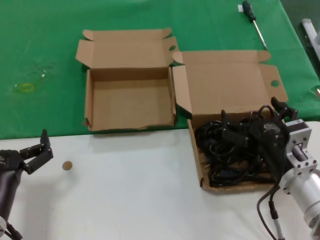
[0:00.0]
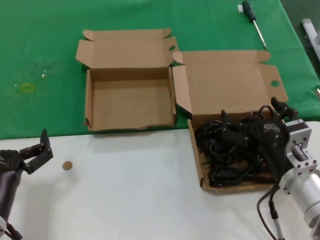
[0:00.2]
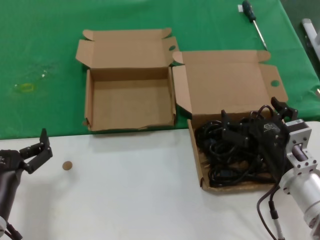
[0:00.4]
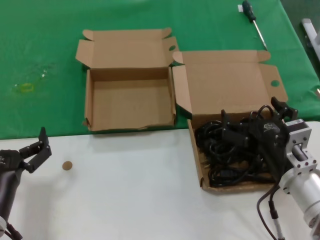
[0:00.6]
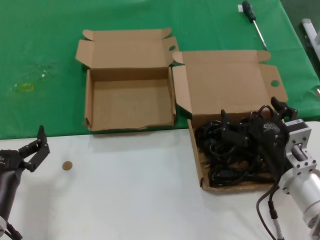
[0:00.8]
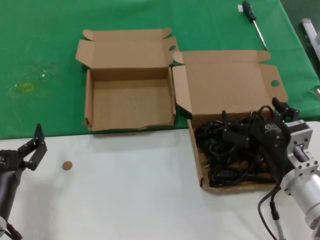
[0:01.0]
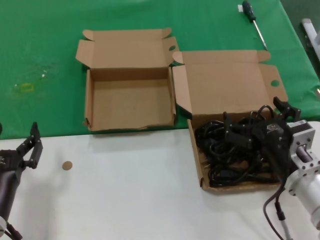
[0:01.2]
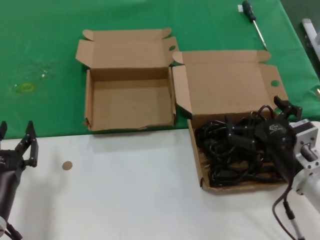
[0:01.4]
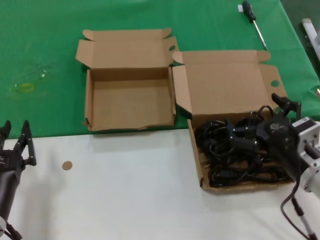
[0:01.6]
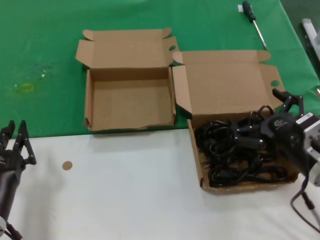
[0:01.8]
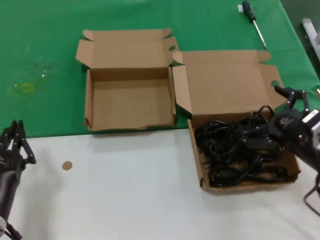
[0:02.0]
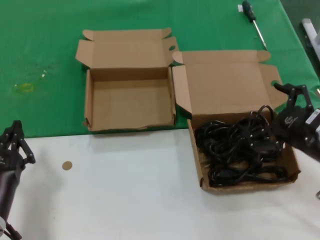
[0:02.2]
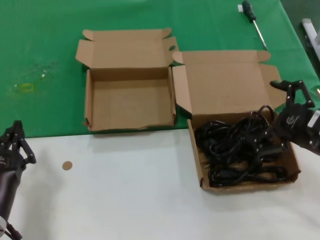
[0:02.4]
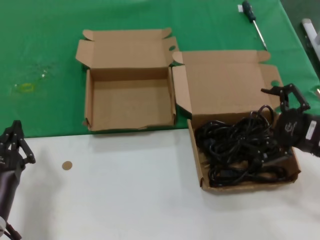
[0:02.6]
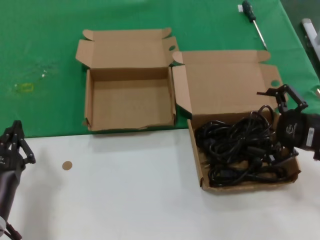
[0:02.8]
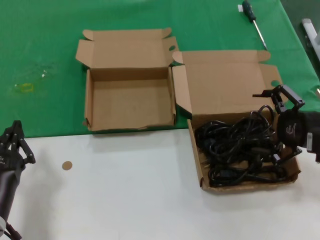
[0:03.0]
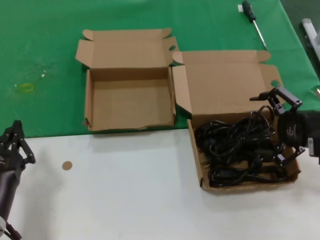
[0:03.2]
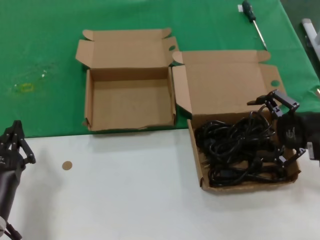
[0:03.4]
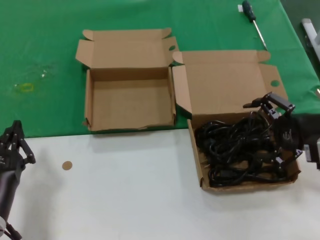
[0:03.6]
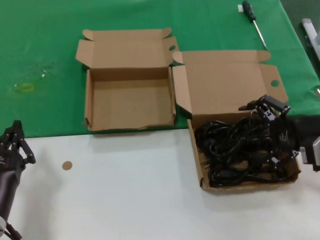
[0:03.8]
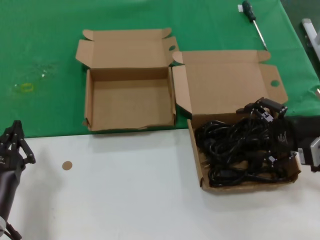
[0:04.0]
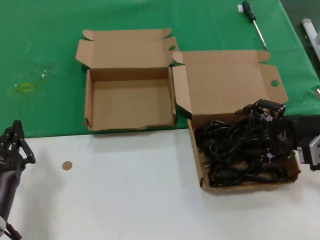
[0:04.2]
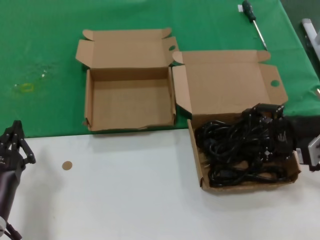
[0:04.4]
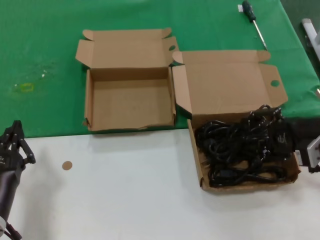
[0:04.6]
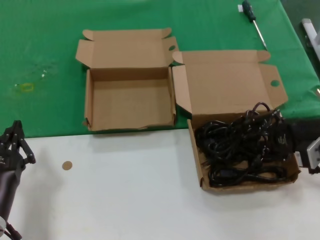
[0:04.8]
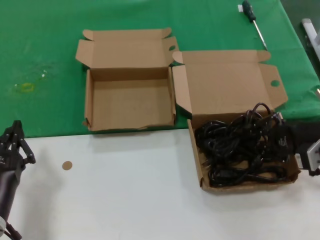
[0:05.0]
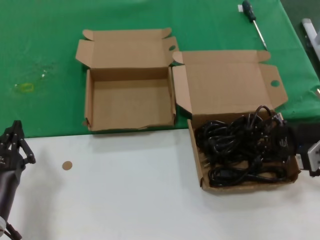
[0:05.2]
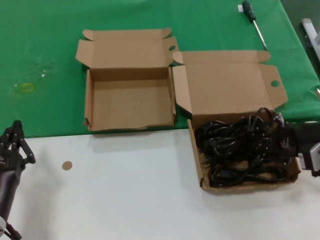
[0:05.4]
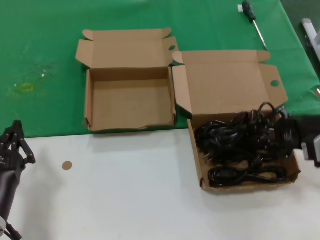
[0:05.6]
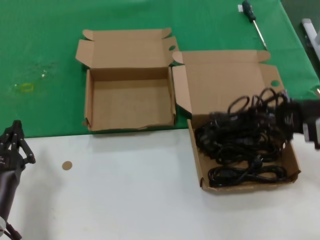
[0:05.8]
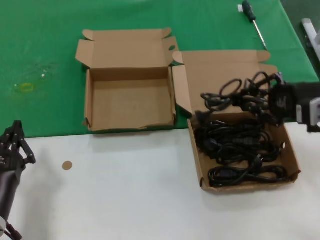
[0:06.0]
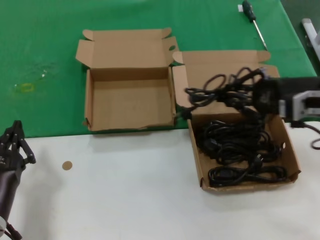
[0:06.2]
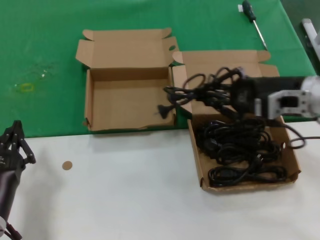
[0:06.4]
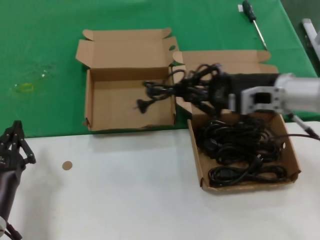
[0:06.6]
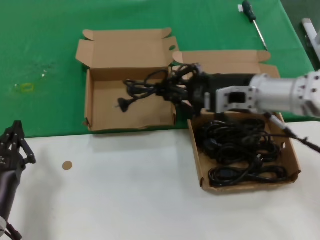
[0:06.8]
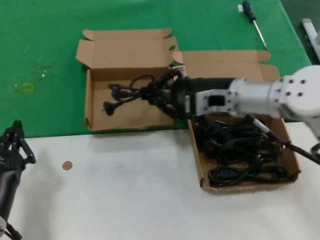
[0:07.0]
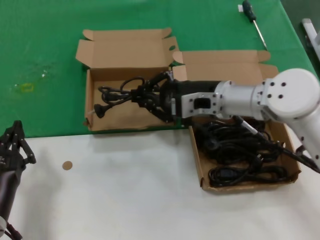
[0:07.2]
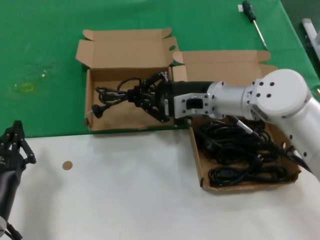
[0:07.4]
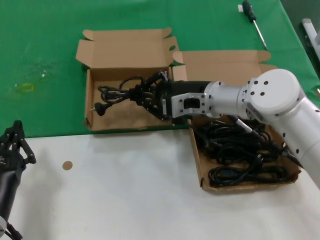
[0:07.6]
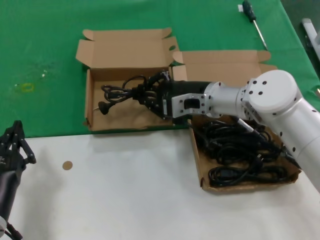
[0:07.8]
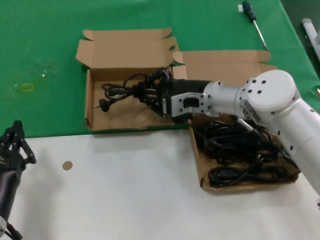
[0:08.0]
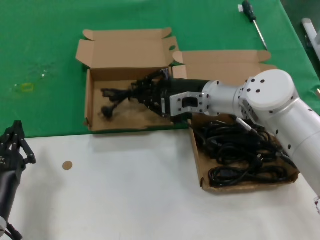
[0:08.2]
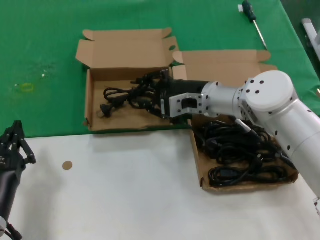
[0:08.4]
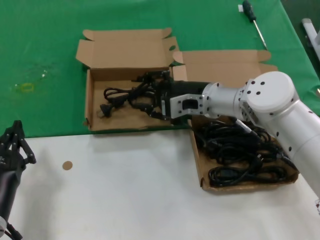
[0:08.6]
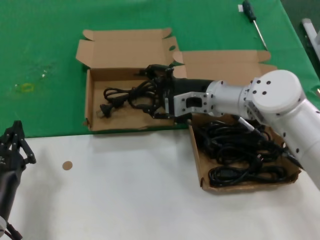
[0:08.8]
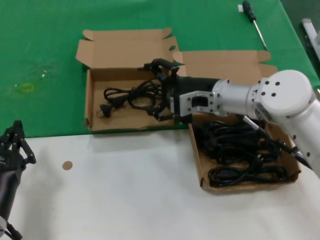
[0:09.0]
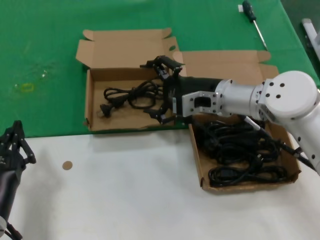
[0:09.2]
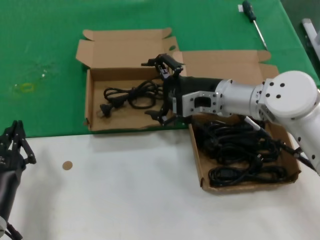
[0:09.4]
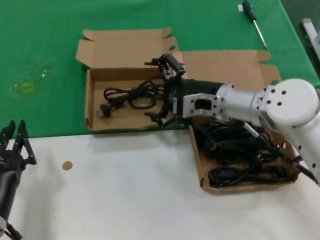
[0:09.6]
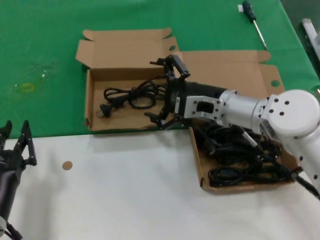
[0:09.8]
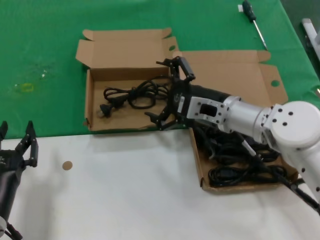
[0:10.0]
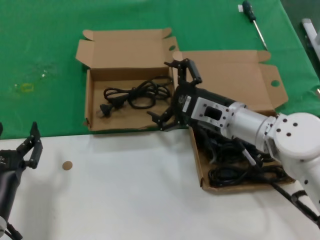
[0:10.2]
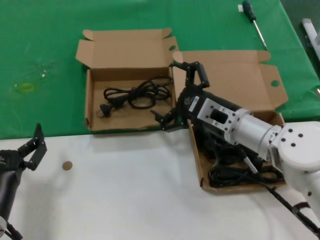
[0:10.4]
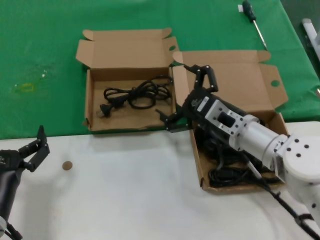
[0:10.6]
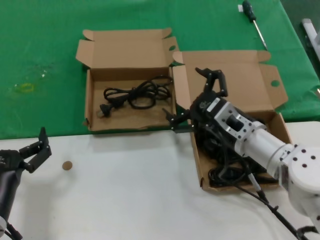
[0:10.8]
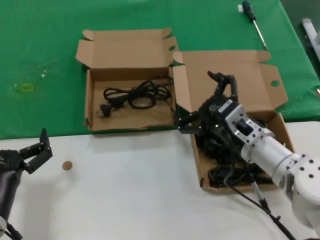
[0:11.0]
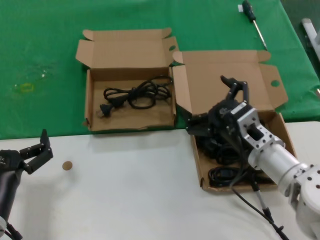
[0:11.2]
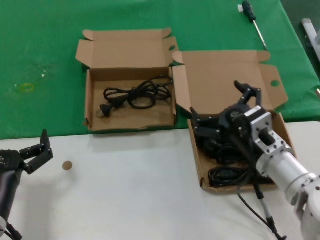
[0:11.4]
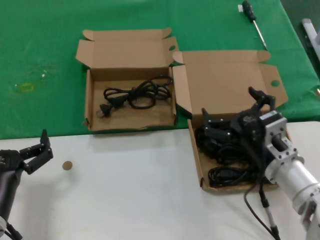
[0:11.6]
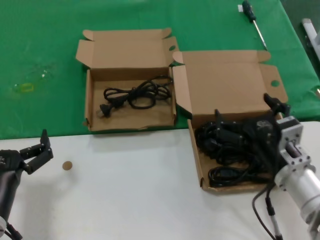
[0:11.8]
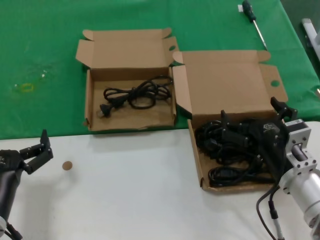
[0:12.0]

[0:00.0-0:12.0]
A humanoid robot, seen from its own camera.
Task of the whole recording: take the parts from the box containing them and put them into an empty box.
Step, 0.0 to 5.0 s: Grasp the data cable.
Step, 5.2 to 9.0 s: Place the data cable in the another box.
0.0 to 1.6 s: The hands move only a little.
1.6 to 3.0 s: The right hand travels to the right and upward by roughly 15 cm.
3.0 to 4.4 s: The hands move only a little.
4.4 to 6.0 s: The right hand goes about 5 cm upward.
6.0 to 7.6 s: The right hand is displaced to the left and forward by roughly 25 cm.
7.6 to 9.0 s: There are only small adjustments of the hands.
9.0 to 10.4 s: The right hand shifts approximately 5 cm backward.
10.4 to 12.0 s: The right hand travels backward, downward and to the right by some 15 cm.

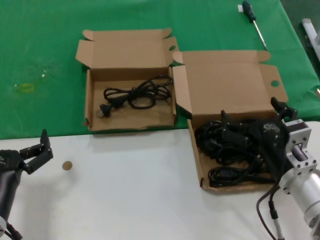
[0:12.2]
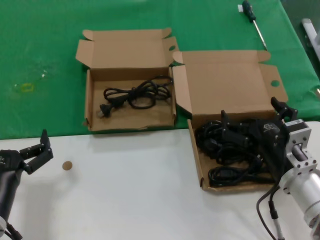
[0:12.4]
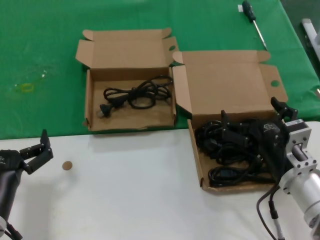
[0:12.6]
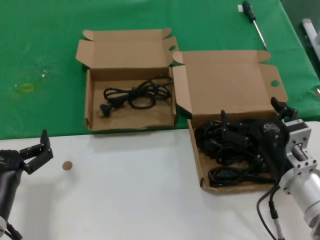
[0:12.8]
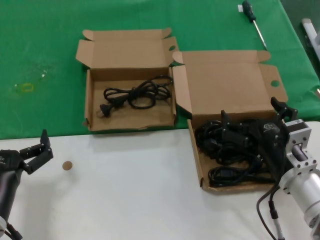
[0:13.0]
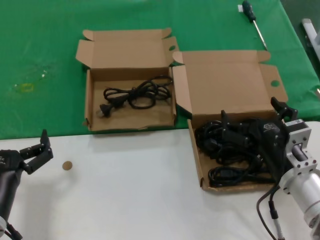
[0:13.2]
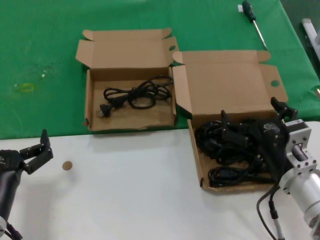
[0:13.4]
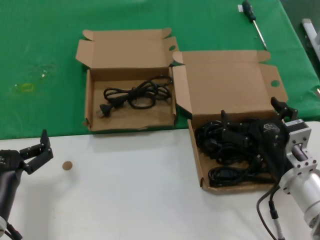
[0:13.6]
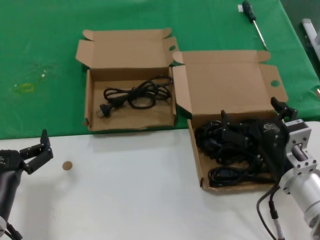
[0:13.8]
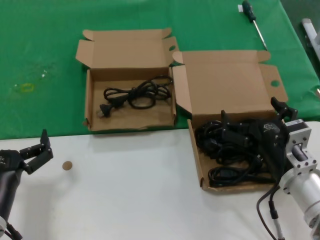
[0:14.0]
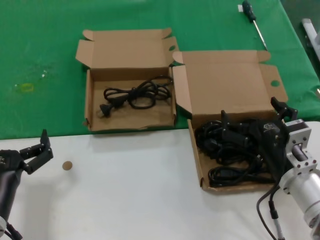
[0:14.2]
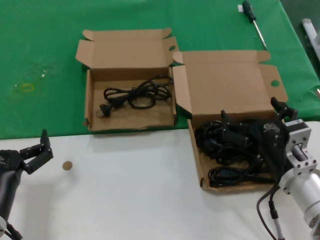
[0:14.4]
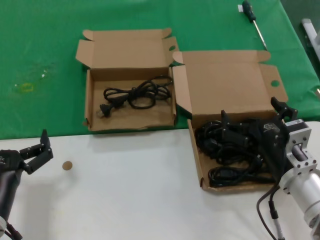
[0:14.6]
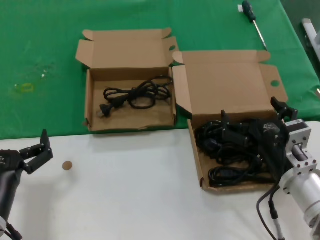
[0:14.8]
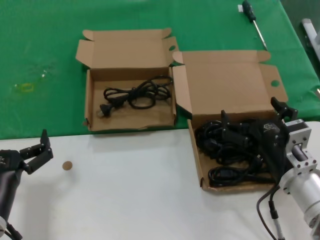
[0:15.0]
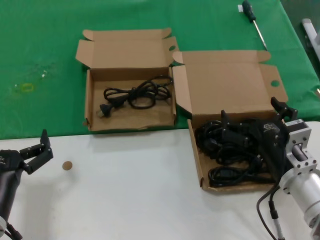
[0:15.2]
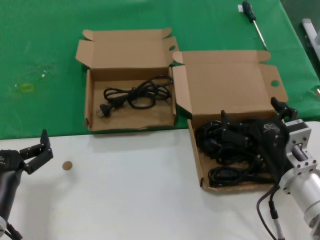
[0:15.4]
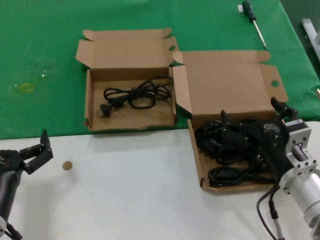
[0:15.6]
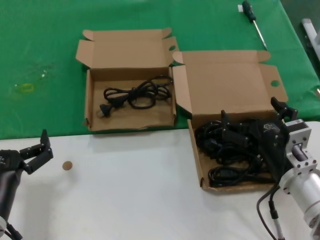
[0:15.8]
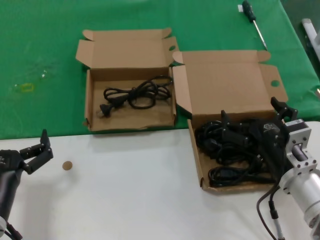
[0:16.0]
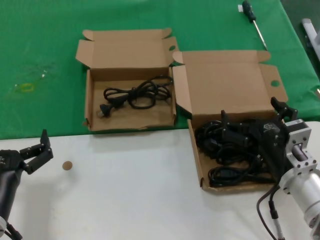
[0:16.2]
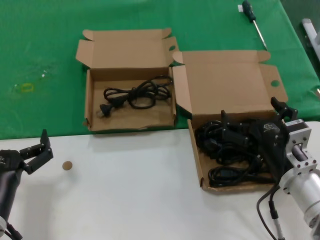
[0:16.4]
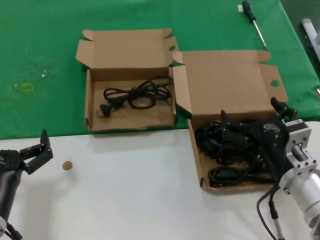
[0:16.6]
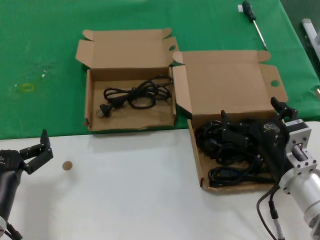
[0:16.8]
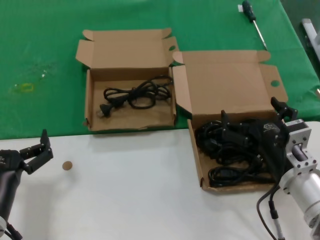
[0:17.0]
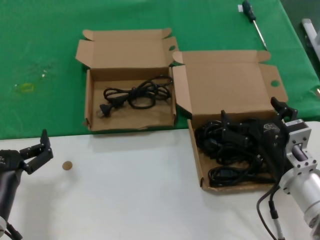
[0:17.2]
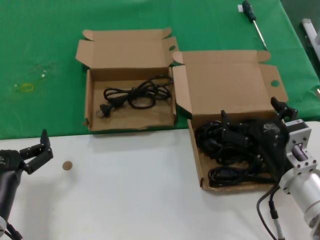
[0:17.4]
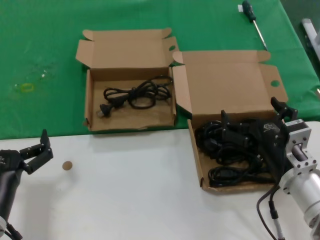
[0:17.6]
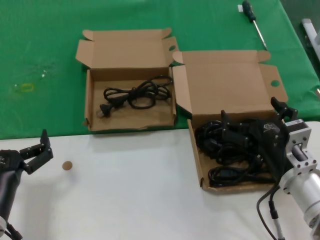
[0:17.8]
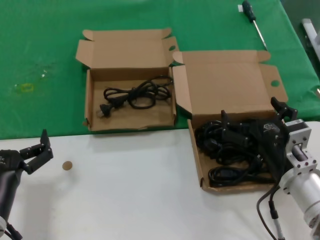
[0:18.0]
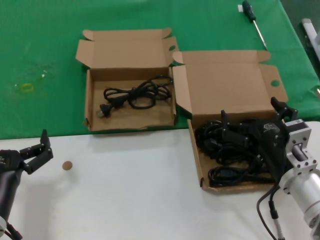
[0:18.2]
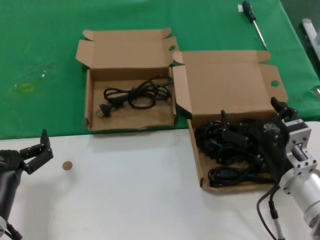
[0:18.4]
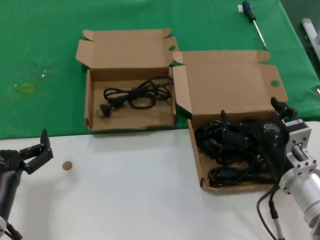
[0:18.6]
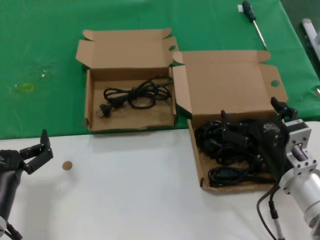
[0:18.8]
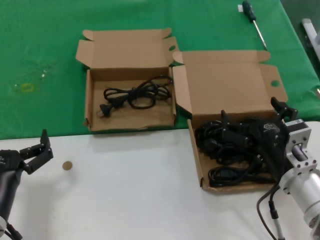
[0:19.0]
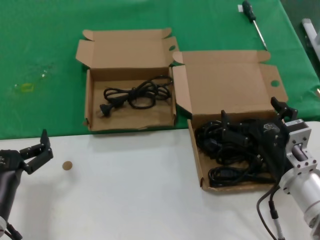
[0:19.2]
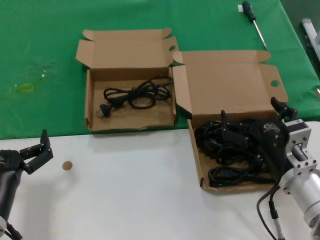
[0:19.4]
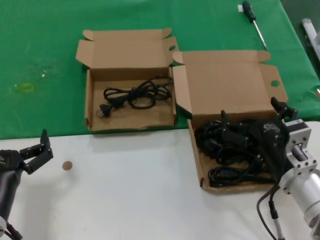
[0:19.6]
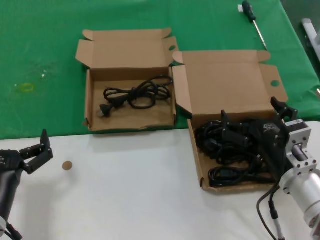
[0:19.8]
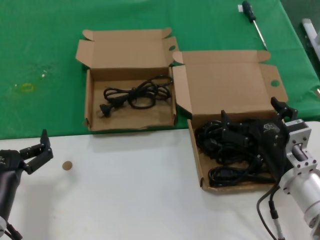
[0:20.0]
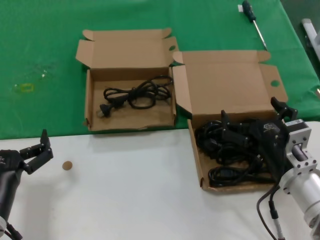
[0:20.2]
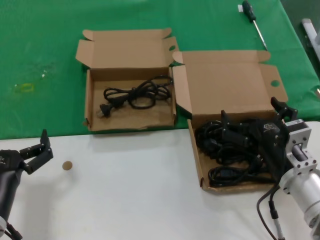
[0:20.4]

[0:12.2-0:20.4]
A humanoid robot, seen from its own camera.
Task of the whole recording: take the parts from the box containing them and put them into an empty box.
12.2 to 20.4 s: Both hands stay put.

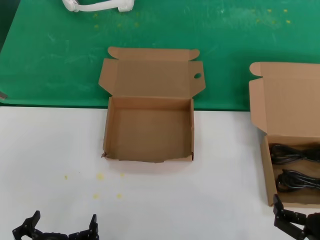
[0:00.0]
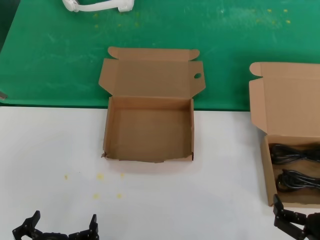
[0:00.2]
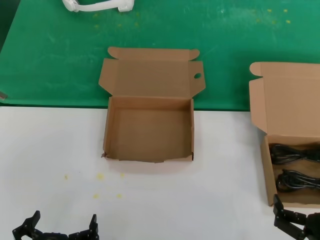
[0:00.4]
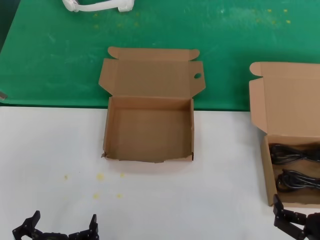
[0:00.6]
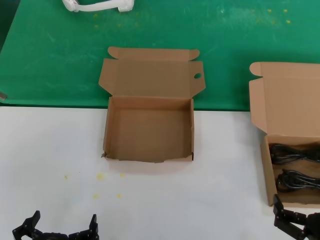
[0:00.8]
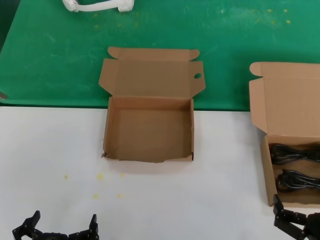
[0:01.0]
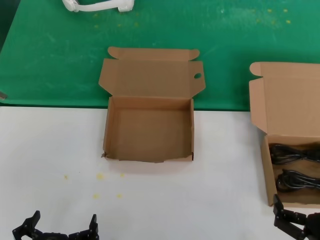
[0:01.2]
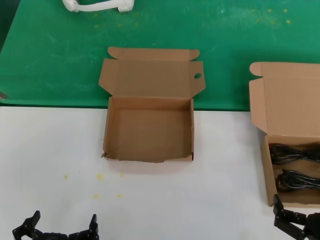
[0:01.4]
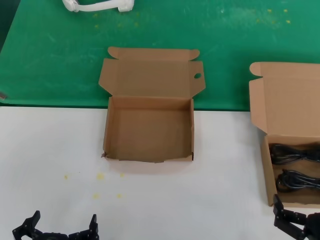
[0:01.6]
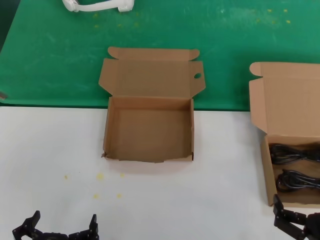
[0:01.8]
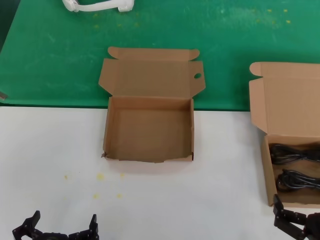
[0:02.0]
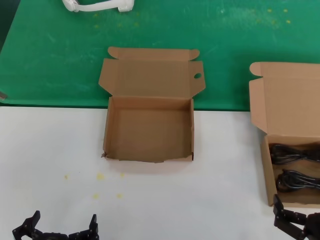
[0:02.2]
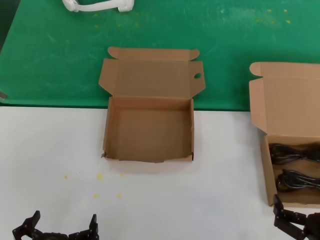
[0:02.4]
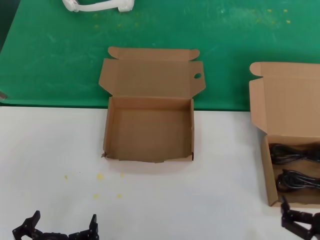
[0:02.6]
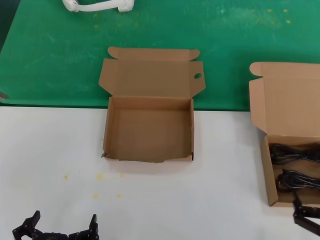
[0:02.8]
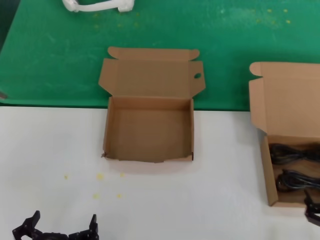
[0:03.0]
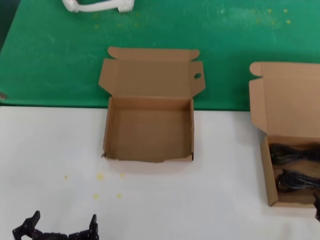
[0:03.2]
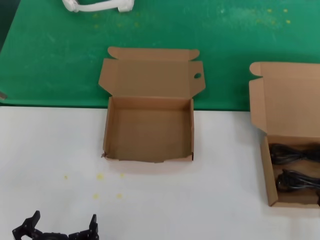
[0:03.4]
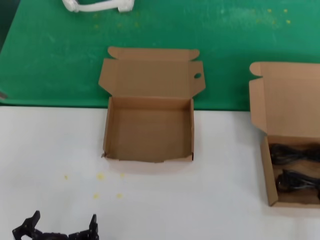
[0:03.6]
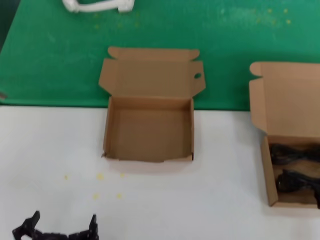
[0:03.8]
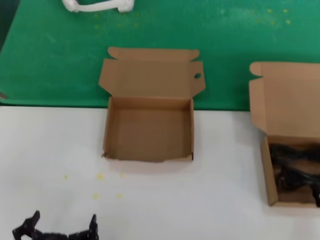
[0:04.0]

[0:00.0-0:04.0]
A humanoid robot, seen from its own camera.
Task of the whole recording: take the parts from the box containing them and put them into an empty box.
0.0 to 1.4 s: Neither hand changes place.
1.4 to 2.6 s: The hands stay close to where they were, moving slightly.
2.6 to 4.0 s: The right hand heads forward, to the right and upward, covering some 15 cm.
